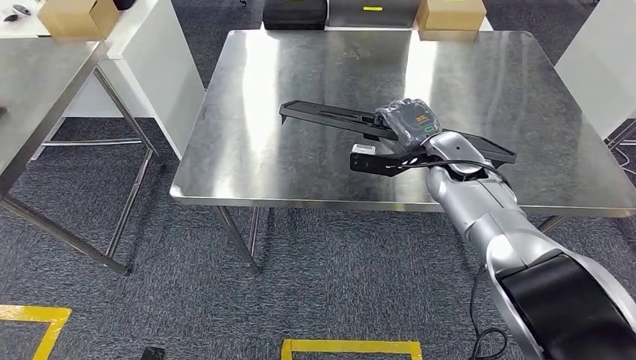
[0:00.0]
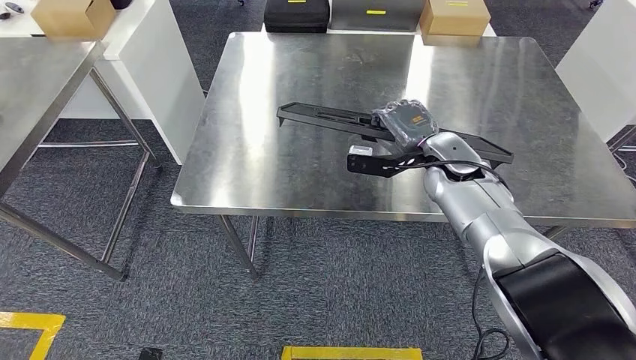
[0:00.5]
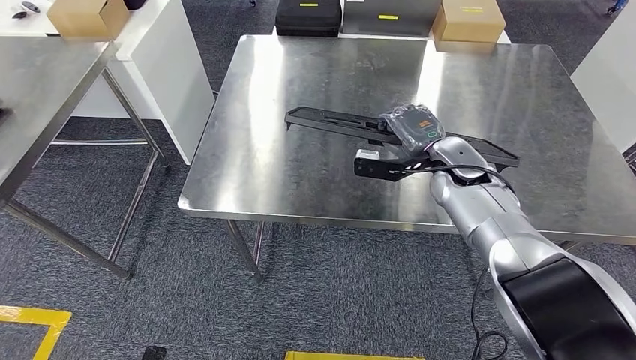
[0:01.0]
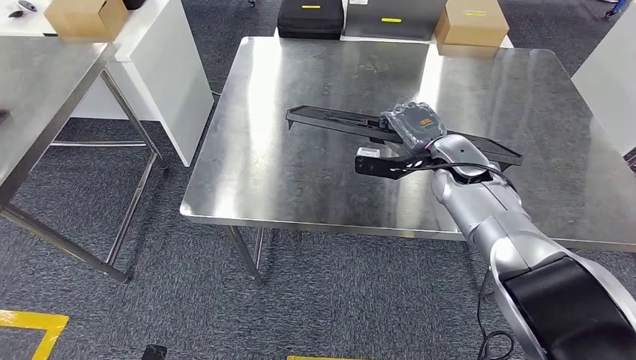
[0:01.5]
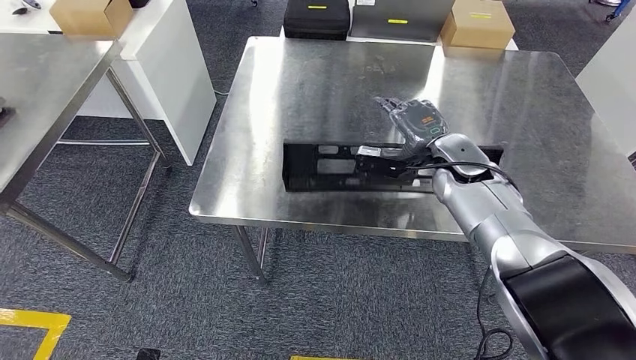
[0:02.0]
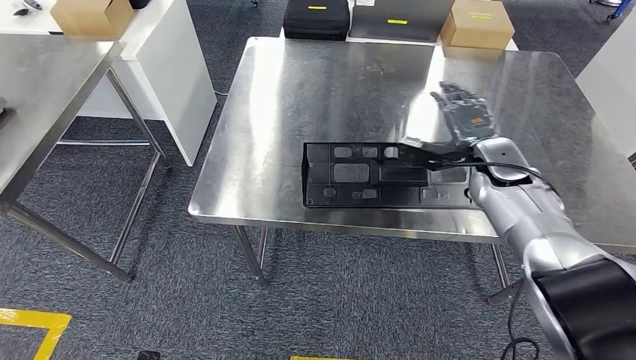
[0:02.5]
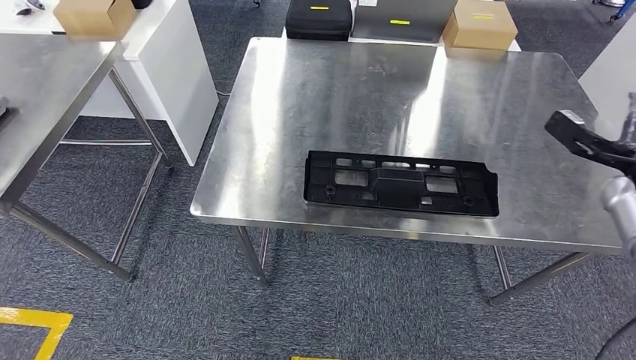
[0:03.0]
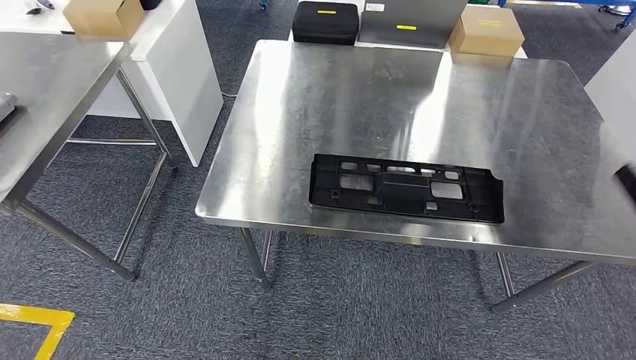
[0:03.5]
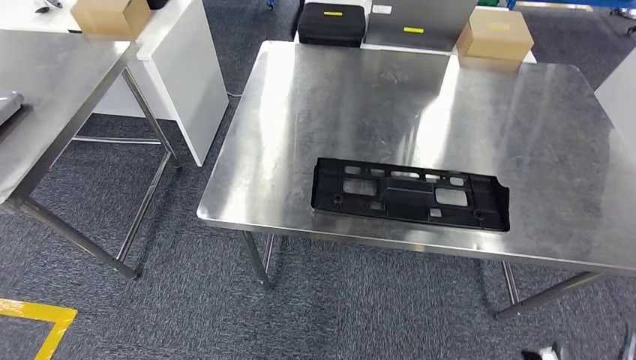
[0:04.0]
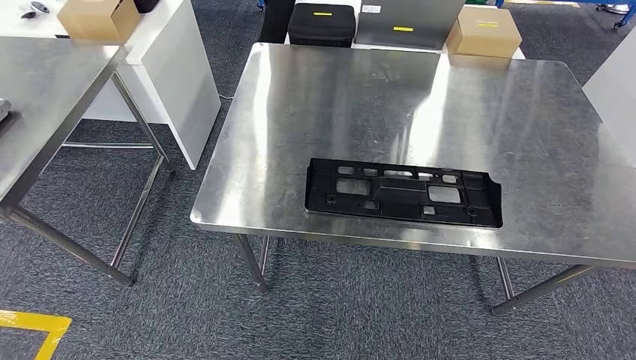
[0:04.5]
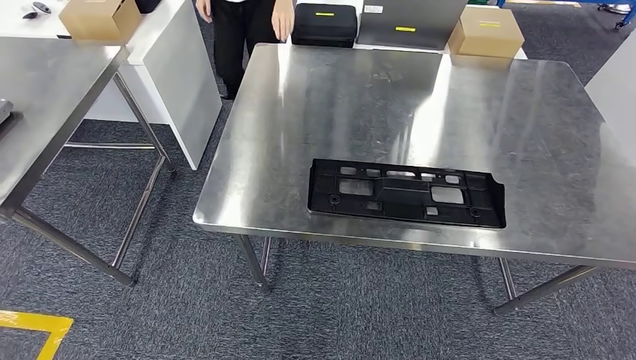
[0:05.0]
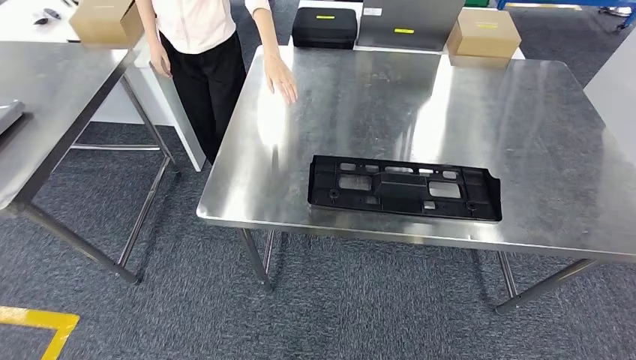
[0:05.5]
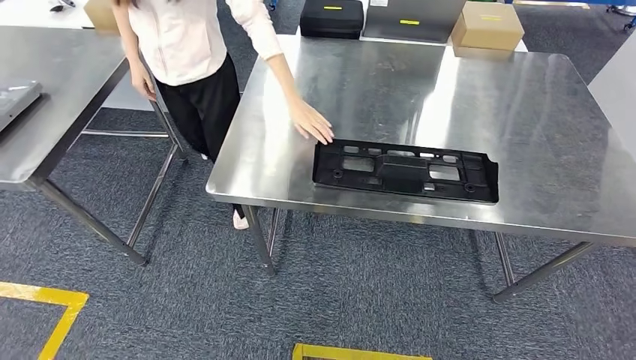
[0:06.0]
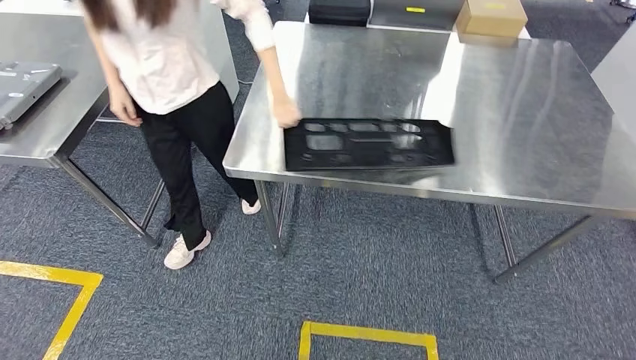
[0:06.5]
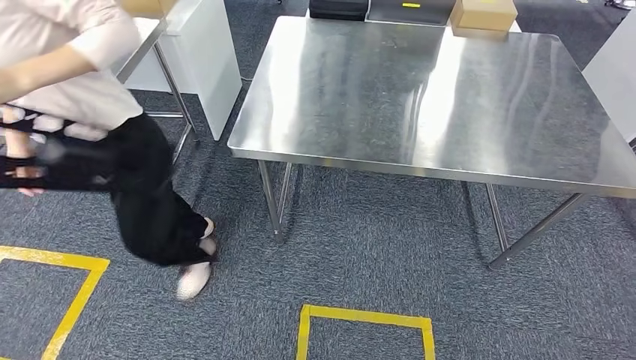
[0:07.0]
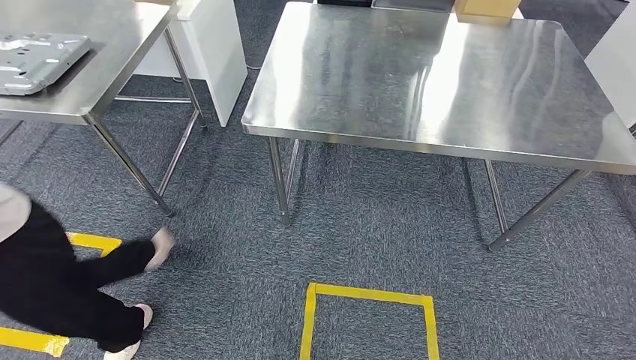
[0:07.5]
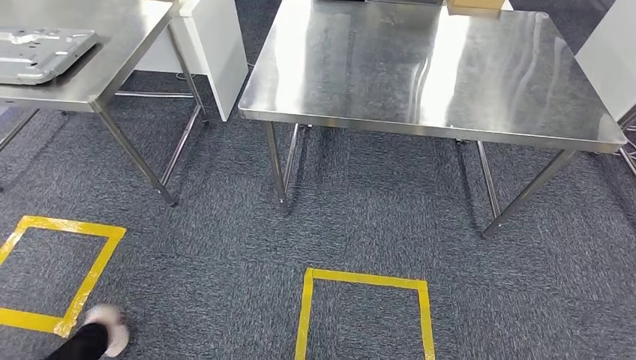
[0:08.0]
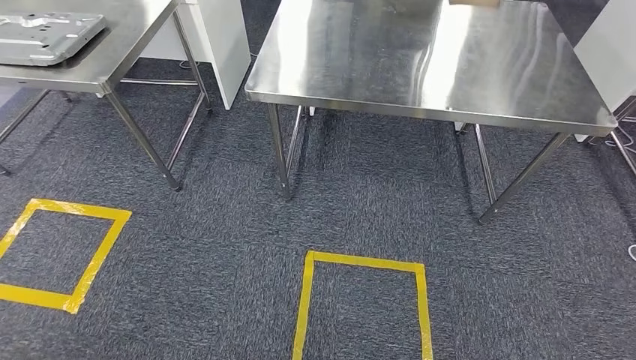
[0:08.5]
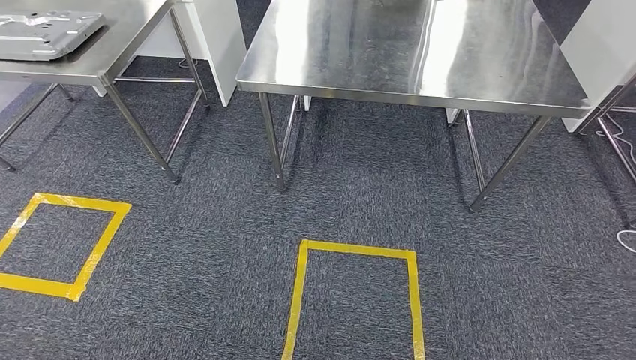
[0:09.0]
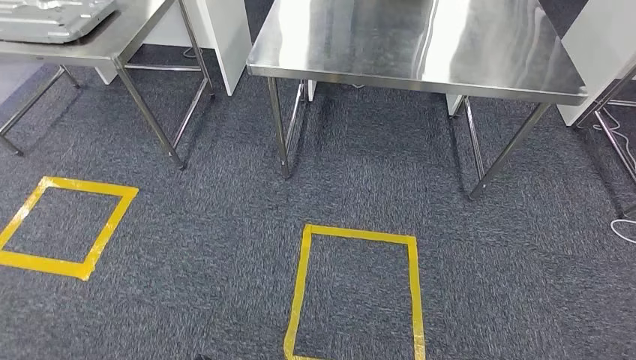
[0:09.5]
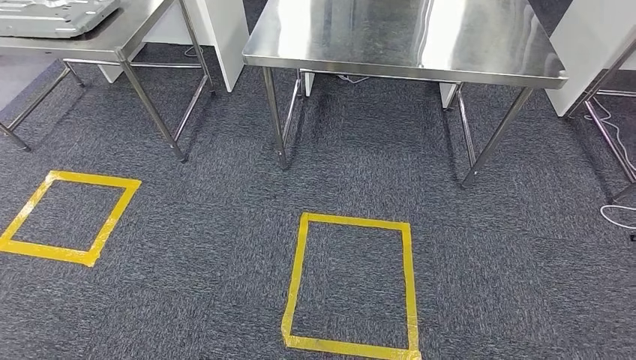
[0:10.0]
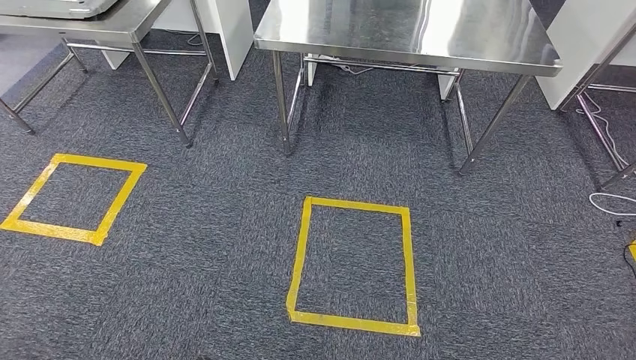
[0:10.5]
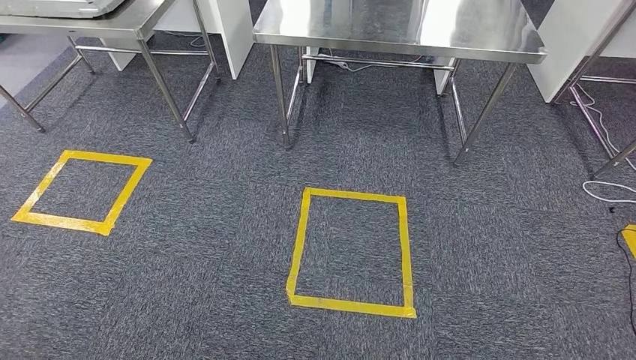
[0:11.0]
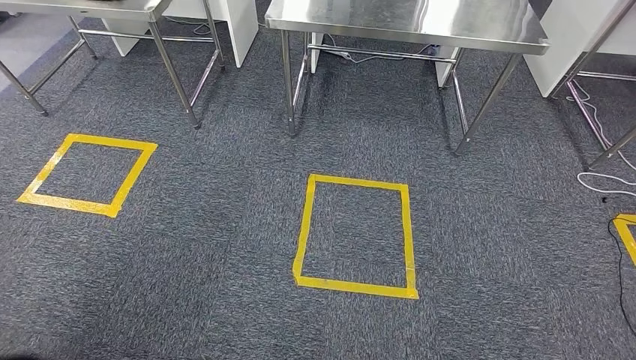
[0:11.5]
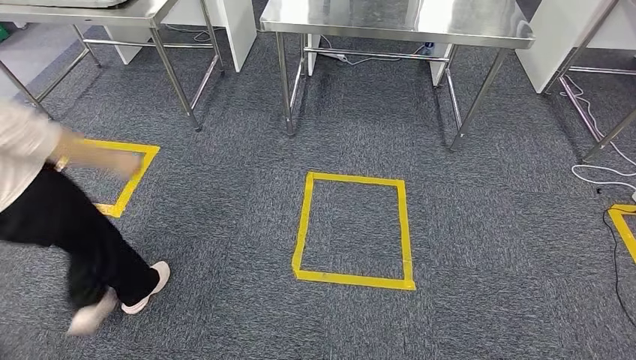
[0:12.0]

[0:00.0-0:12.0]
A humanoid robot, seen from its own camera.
Step, 0:00.0 to 0:04.5: Insert the large material into the corresponding slot on the workbench.

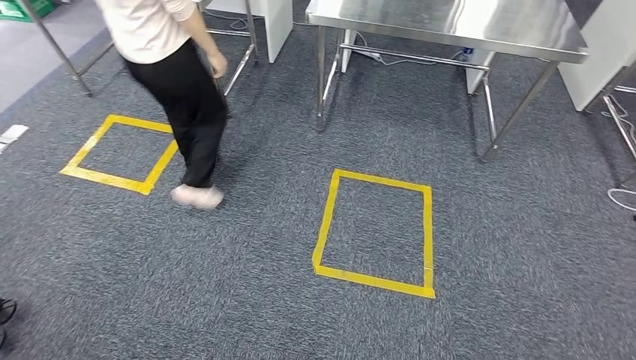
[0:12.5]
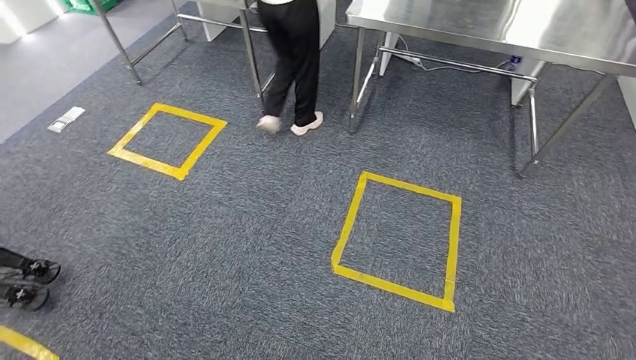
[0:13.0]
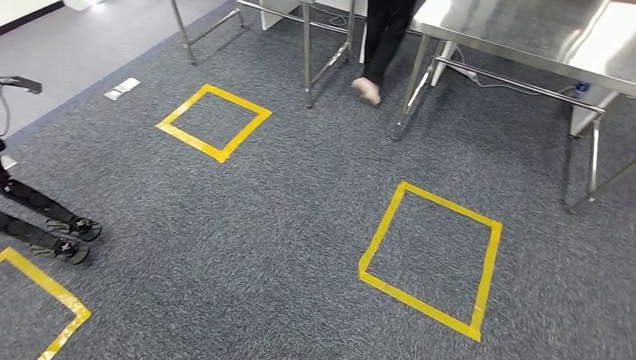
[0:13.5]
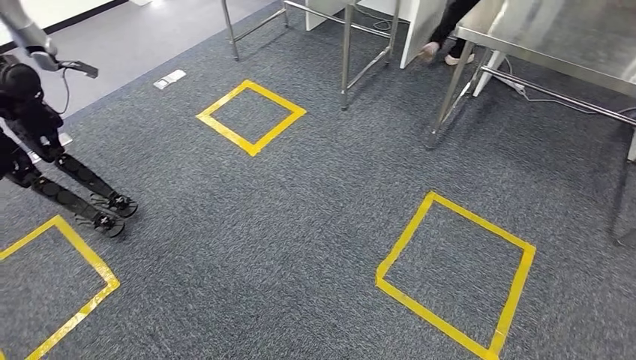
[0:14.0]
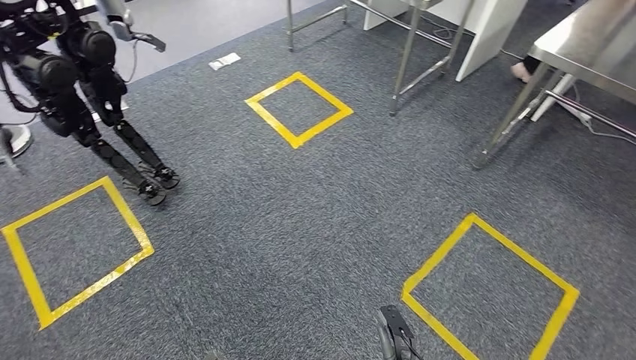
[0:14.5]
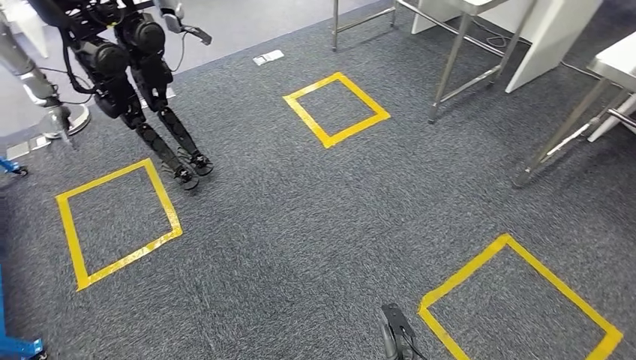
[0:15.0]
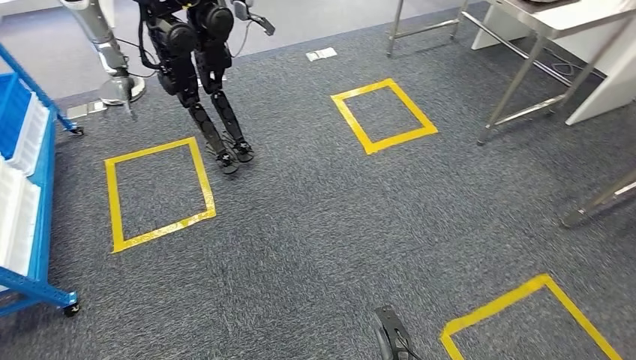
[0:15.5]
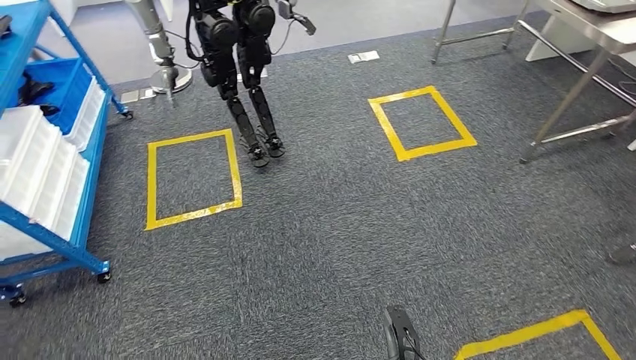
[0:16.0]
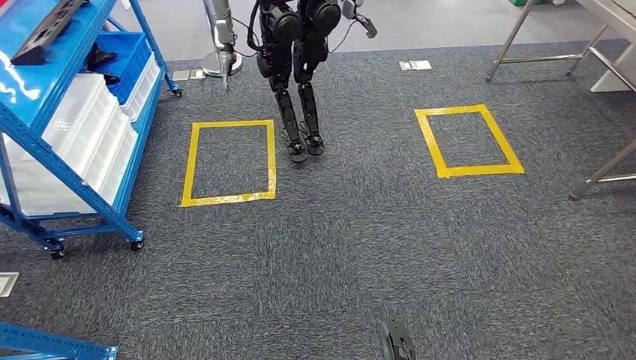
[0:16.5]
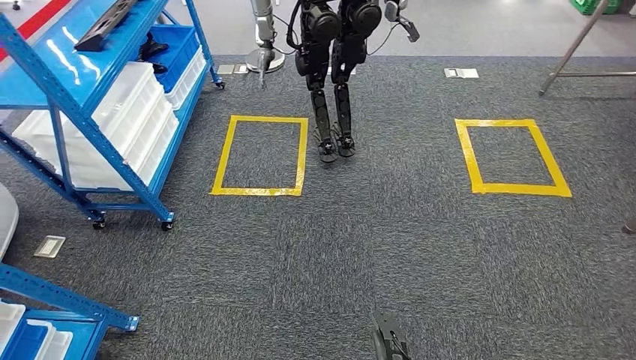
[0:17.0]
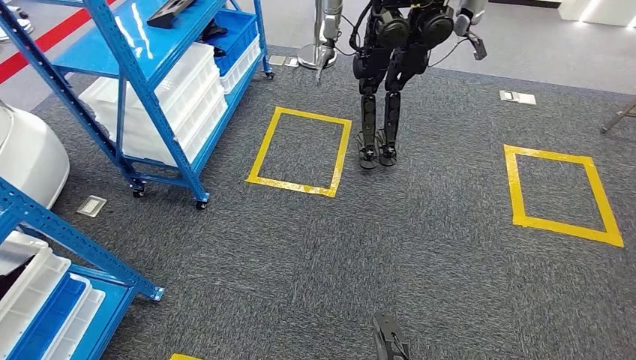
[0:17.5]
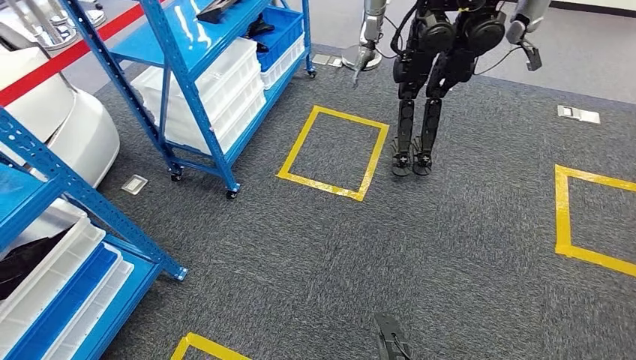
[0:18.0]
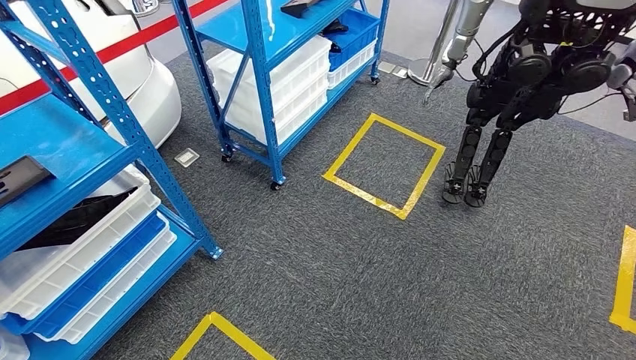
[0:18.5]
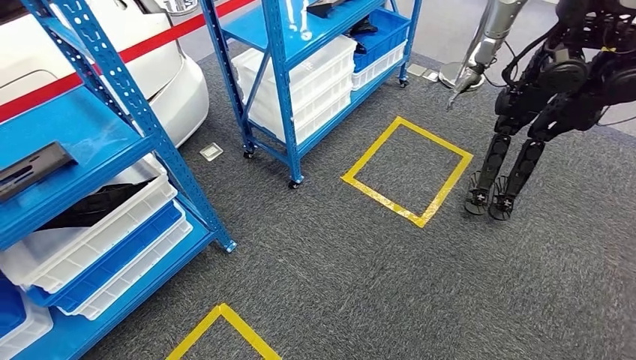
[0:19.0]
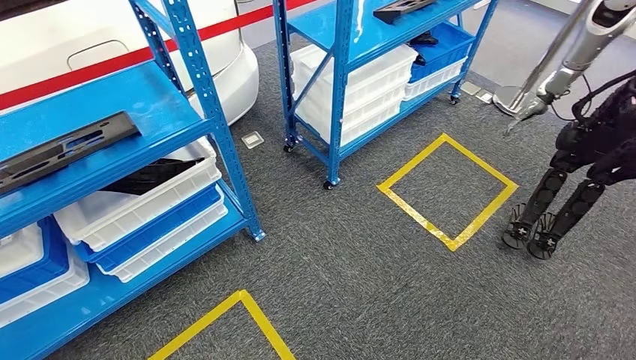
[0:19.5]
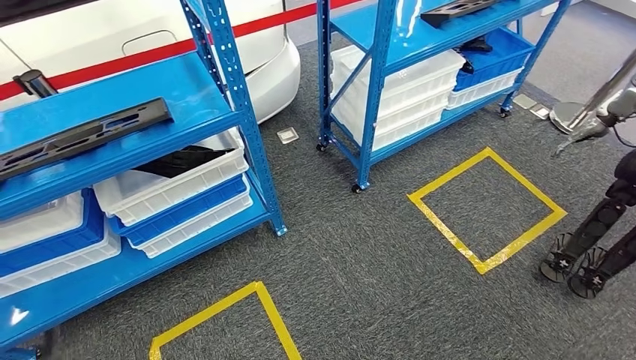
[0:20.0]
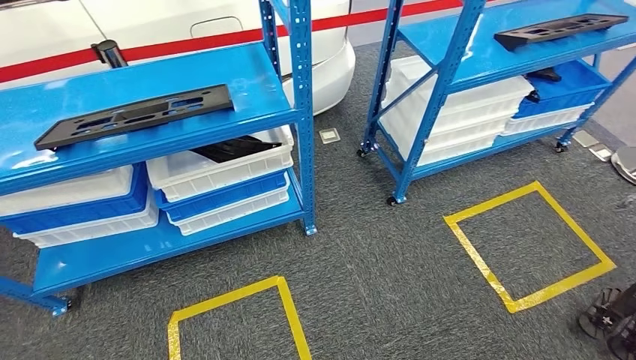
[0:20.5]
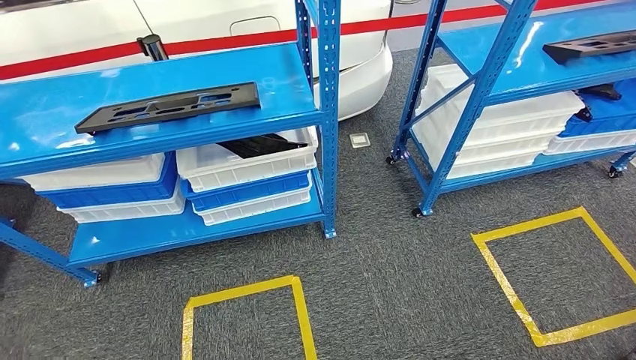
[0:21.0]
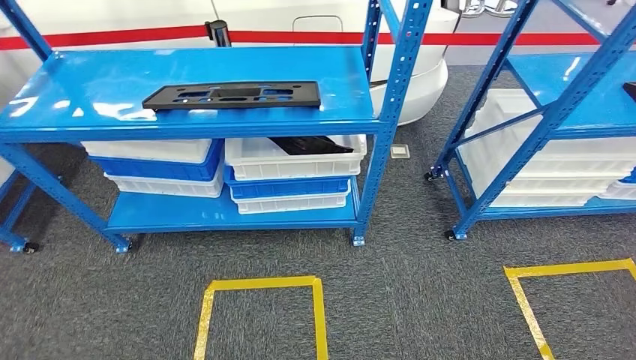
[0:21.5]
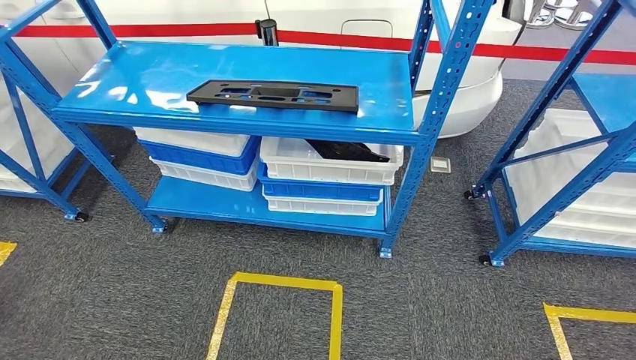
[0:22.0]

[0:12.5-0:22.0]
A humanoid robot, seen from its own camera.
Step, 0:12.5 to 0:22.0: Return to the initial position at the shelf.
